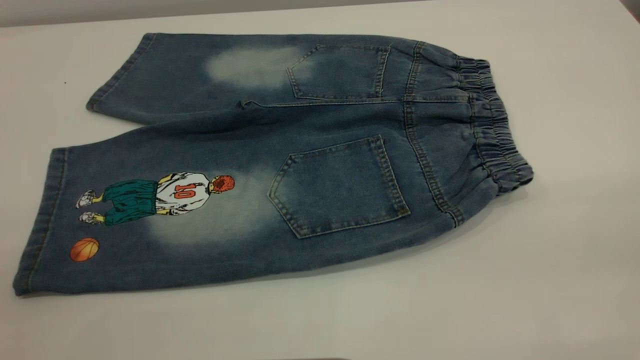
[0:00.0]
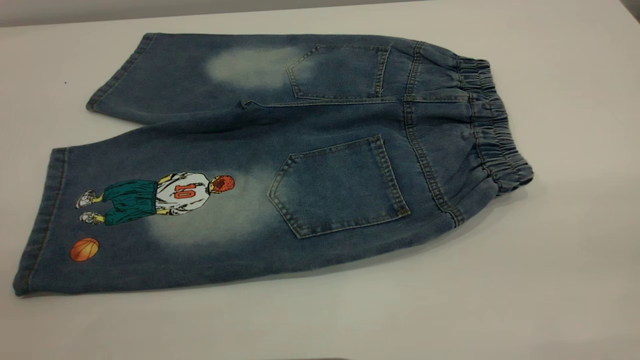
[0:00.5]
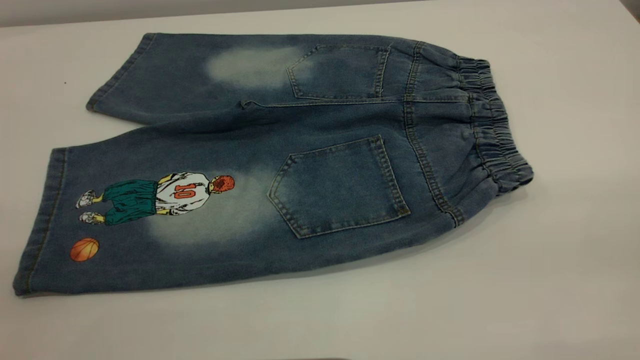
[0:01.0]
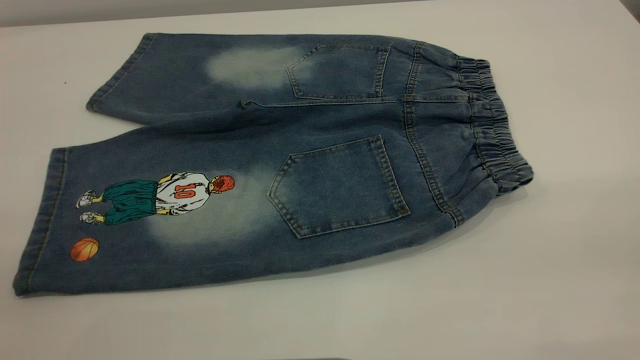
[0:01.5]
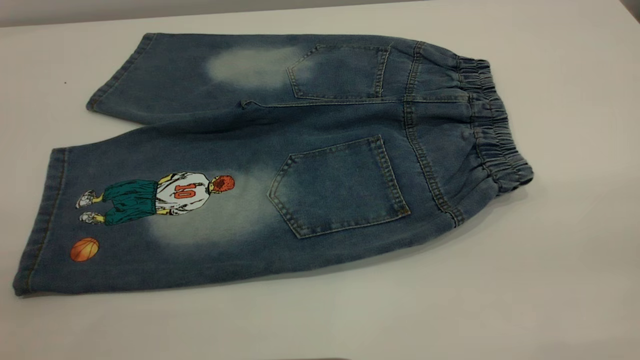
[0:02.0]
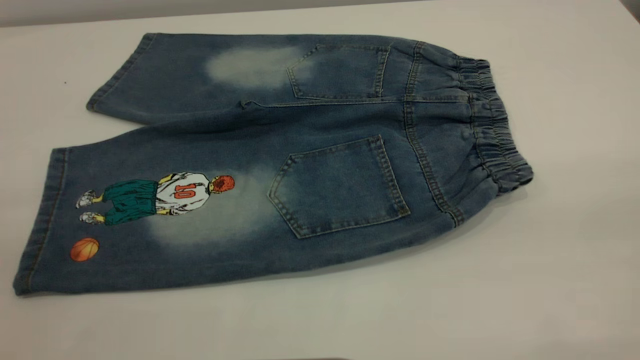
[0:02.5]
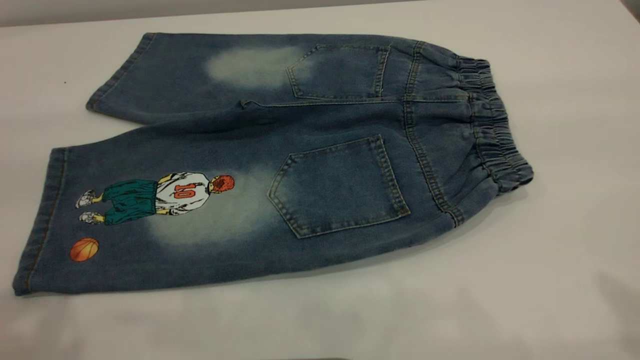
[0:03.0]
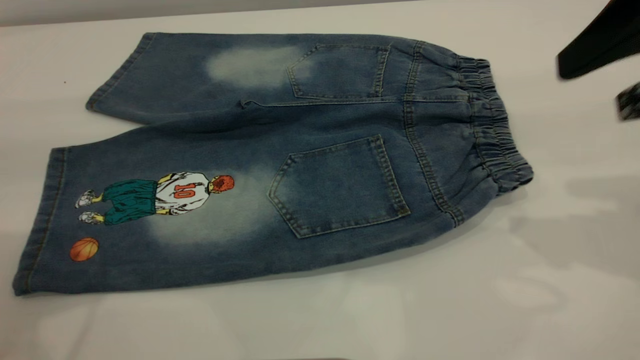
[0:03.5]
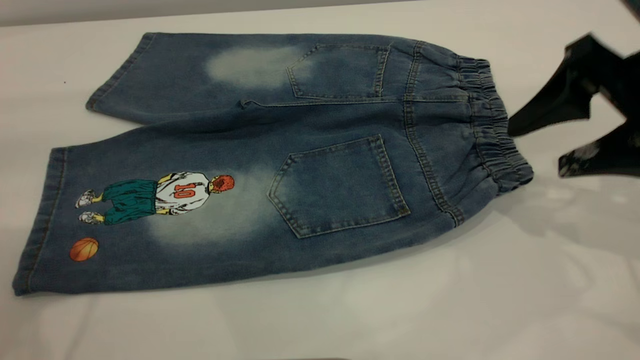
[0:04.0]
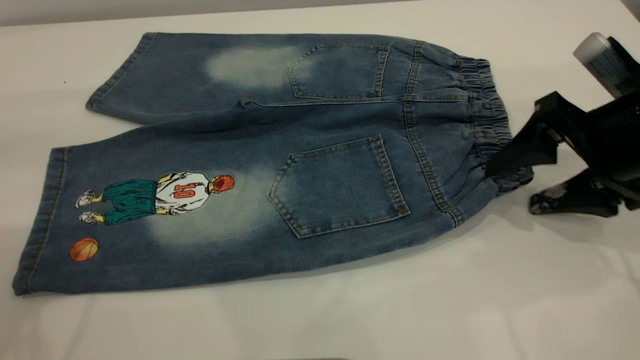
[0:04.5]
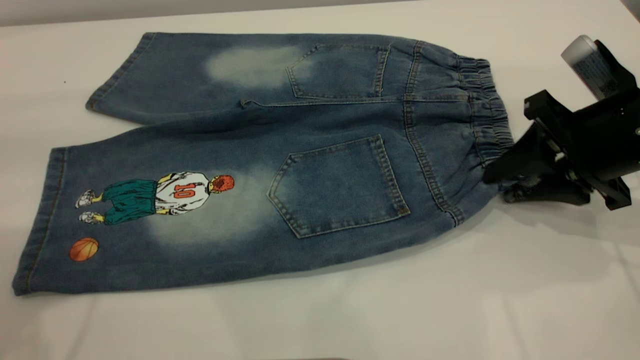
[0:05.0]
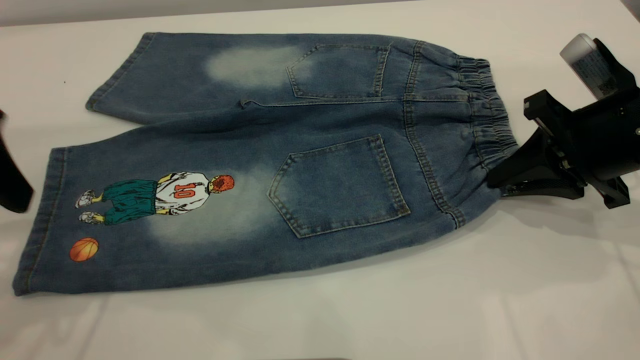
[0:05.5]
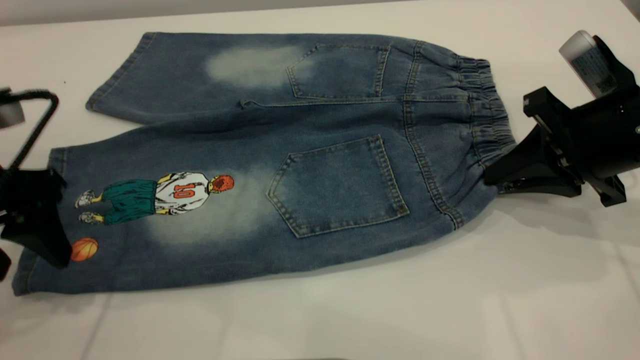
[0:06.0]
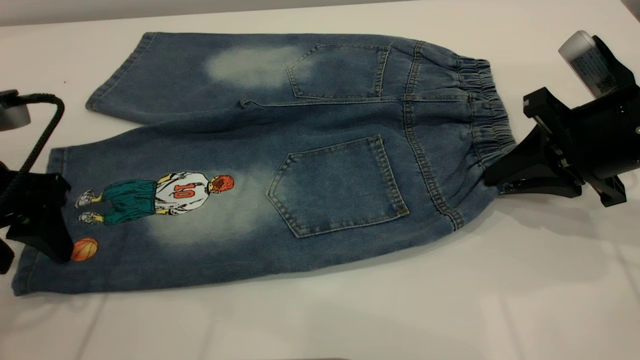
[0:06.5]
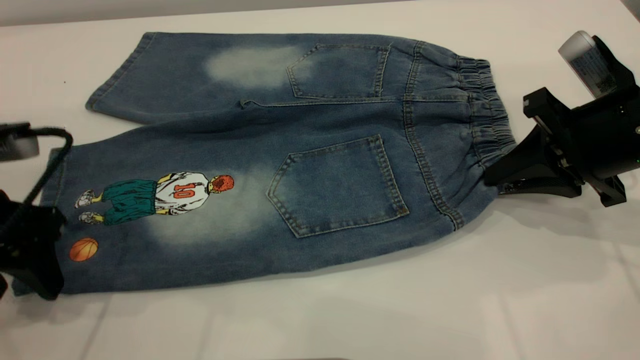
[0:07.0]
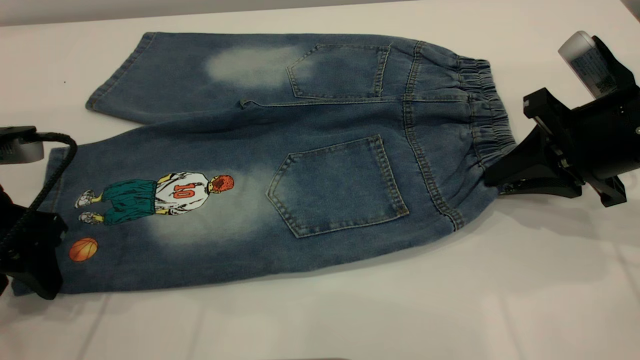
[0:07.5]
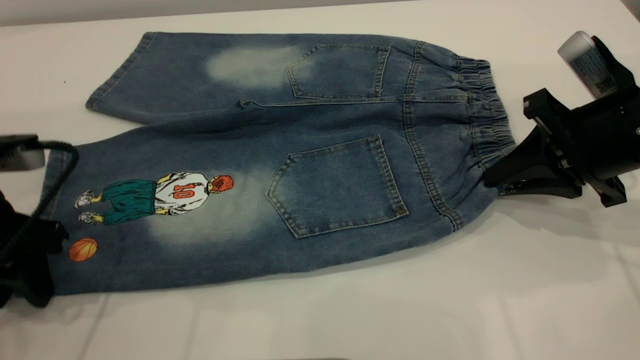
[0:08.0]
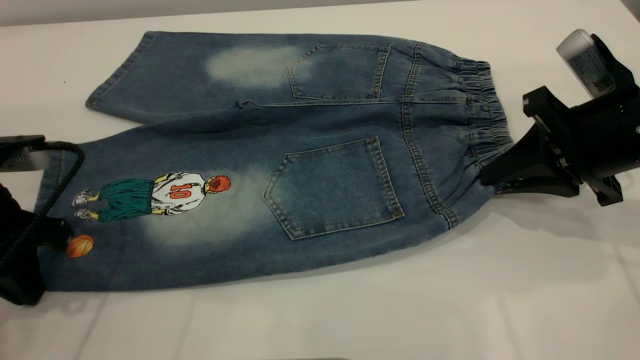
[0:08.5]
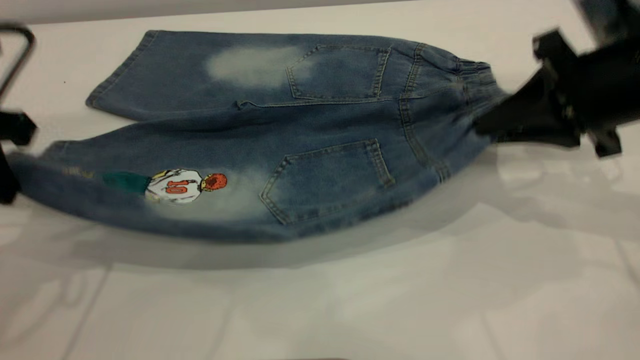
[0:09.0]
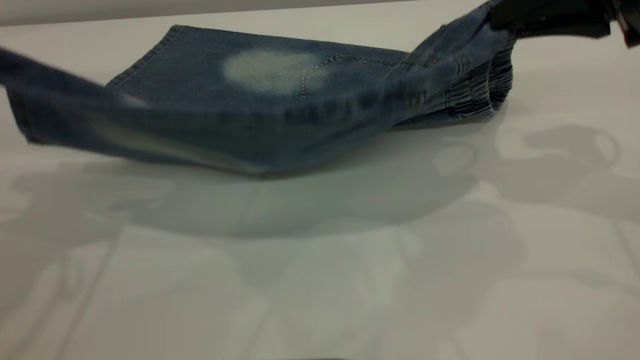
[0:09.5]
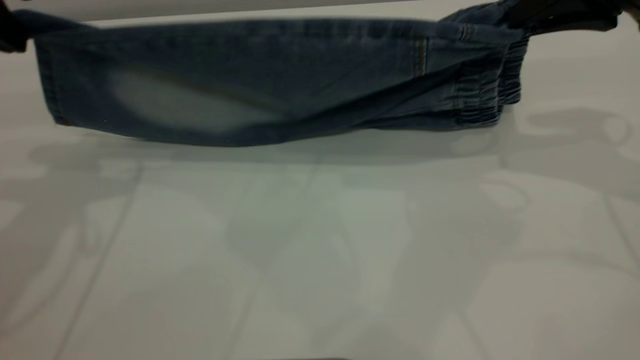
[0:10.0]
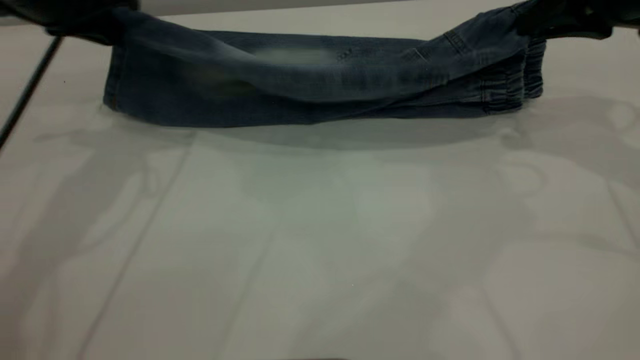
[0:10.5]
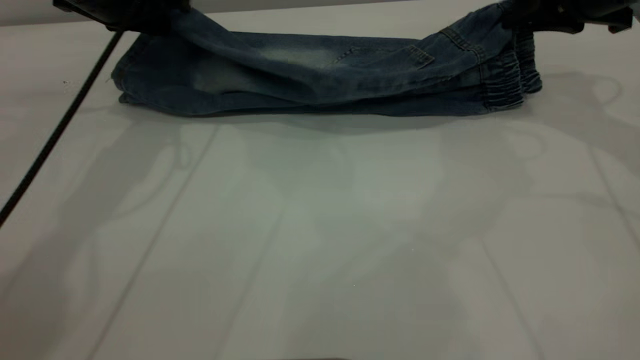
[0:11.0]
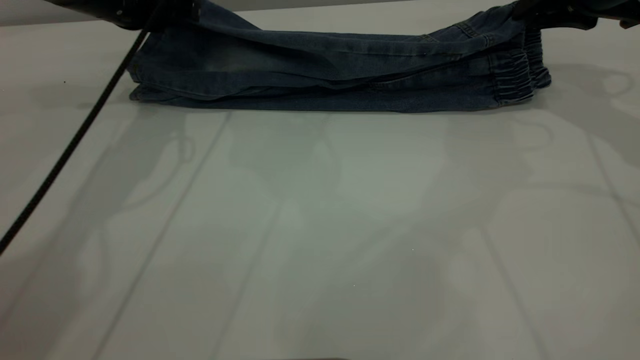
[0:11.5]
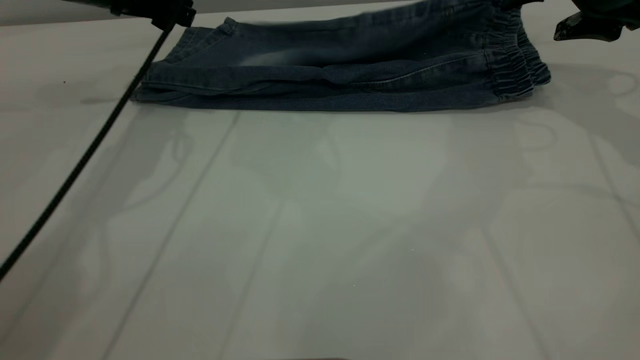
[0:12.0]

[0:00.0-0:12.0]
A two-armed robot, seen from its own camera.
0:00.0 to 0:02.0: The two grippers keep their place.
0:02.0 to 0:04.0: The right gripper travels forward and downward by some 35 cm.
0:04.0 to 0:06.0: The left gripper is displaced downward by approximately 15 cm. The right gripper moves downward, about 5 cm, and closes up.
0:06.0 to 0:08.0: The left gripper closes.
0:08.0 to 0:10.0: The two grippers go approximately 15 cm upward and forward. The left gripper closes up.
0:10.0 to 0:12.0: The right gripper is displaced forward and downward by about 10 cm, and opens. Meanwhile the left gripper goes roughly 15 cm forward, downward and to the right, and opens.

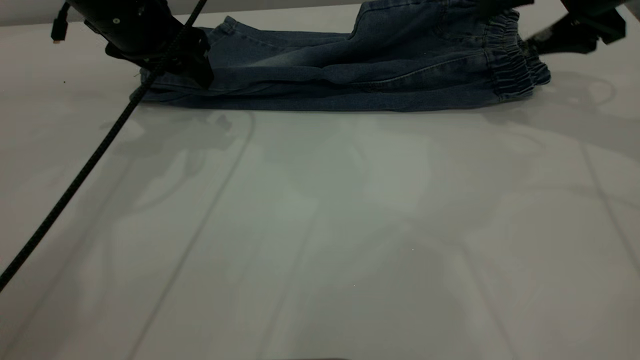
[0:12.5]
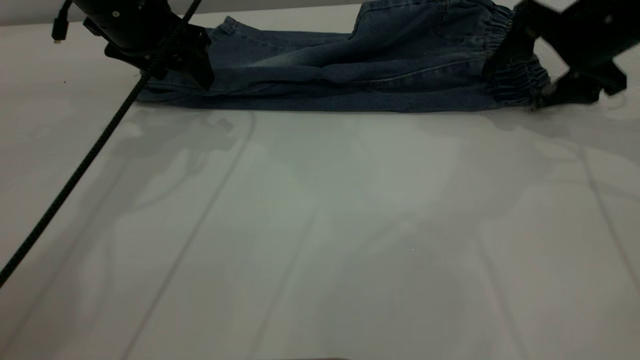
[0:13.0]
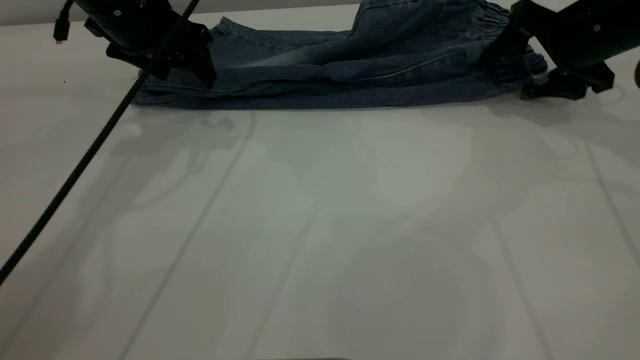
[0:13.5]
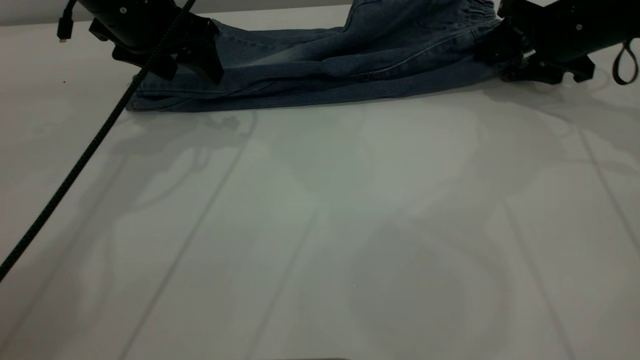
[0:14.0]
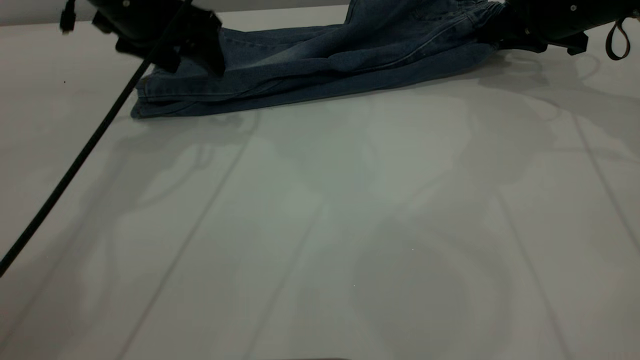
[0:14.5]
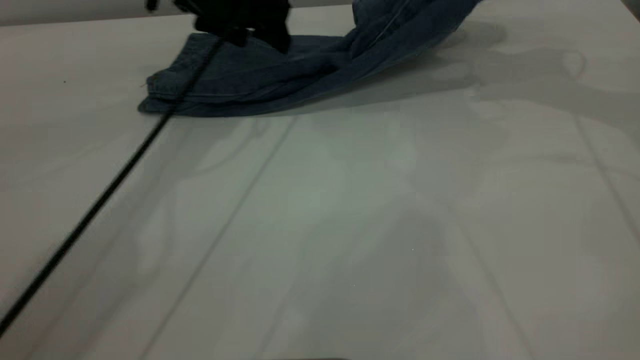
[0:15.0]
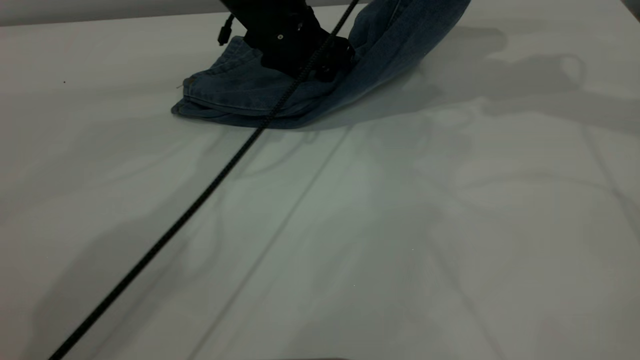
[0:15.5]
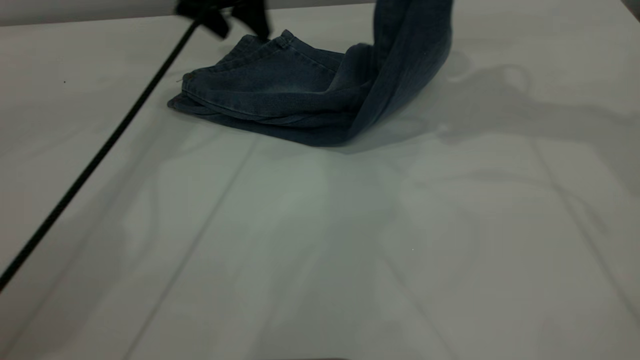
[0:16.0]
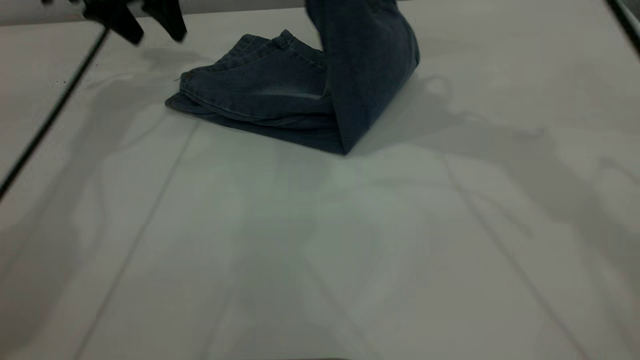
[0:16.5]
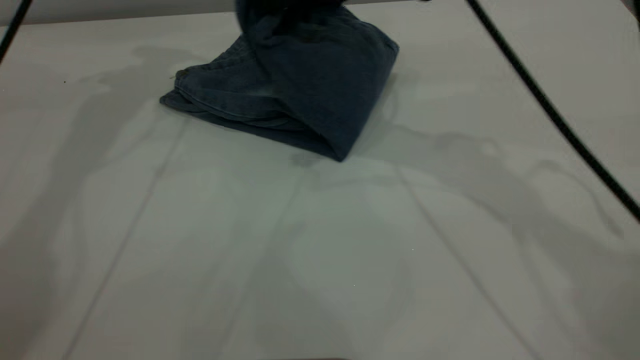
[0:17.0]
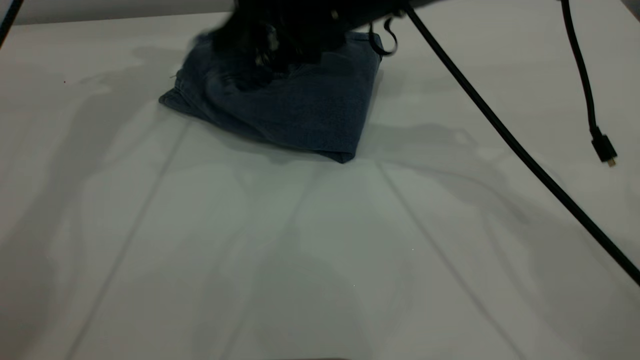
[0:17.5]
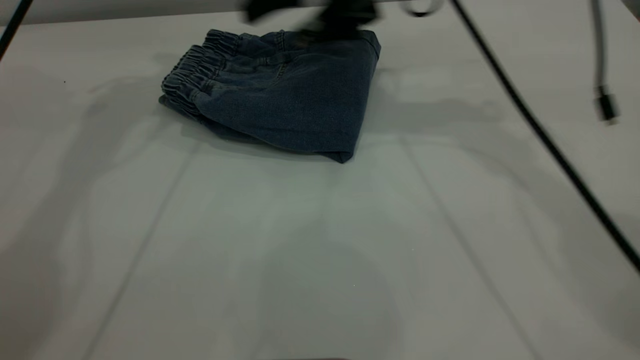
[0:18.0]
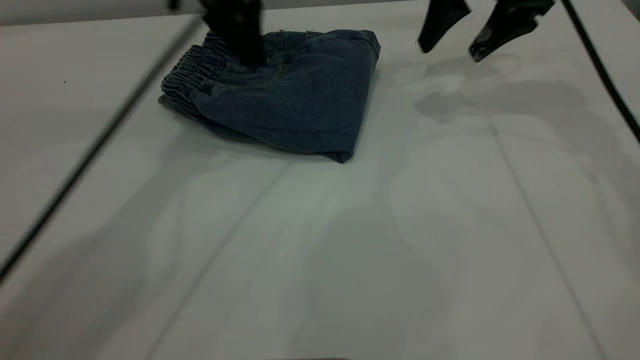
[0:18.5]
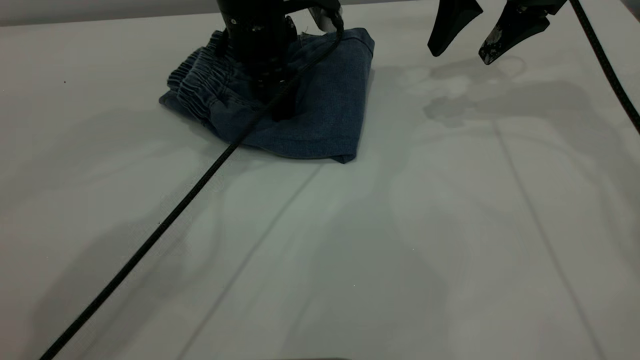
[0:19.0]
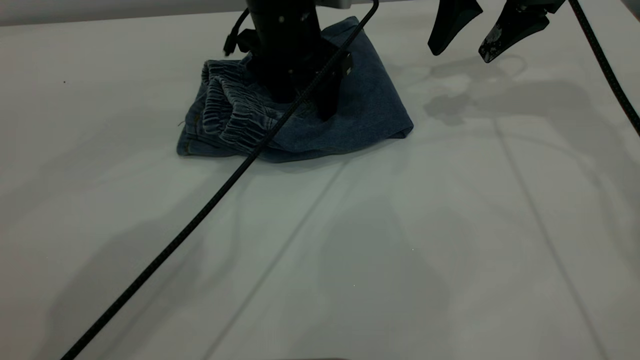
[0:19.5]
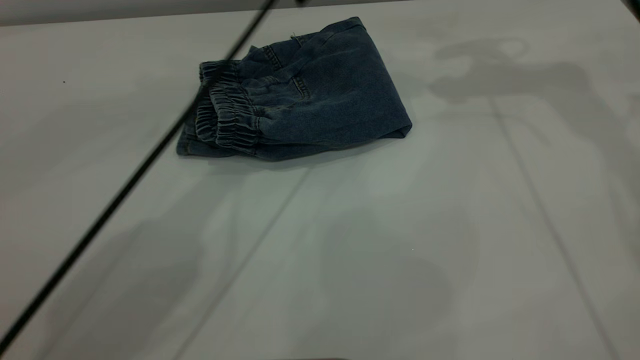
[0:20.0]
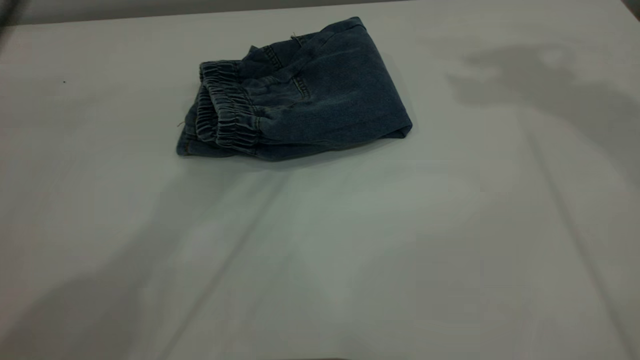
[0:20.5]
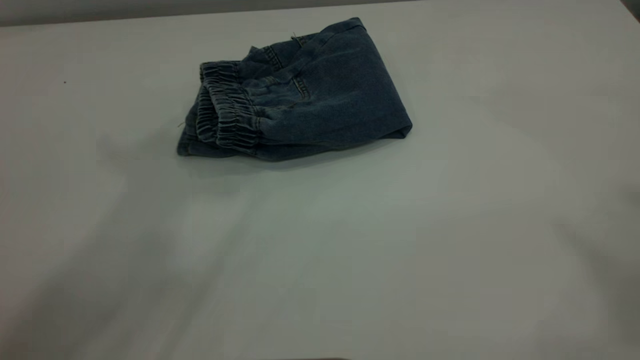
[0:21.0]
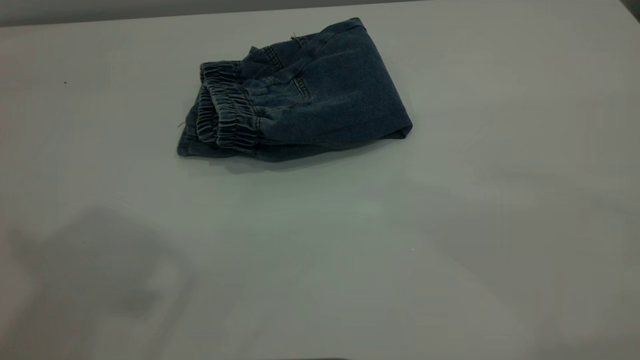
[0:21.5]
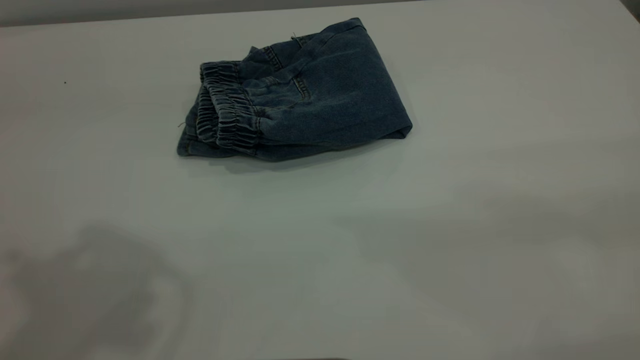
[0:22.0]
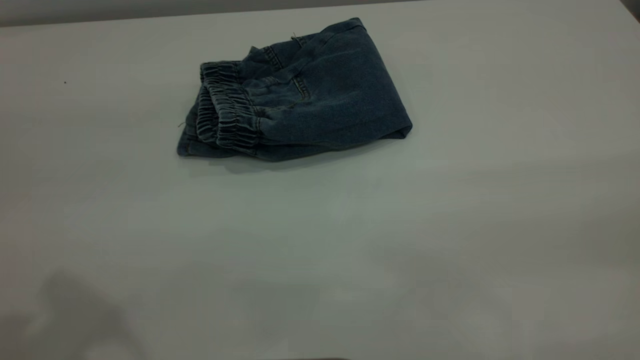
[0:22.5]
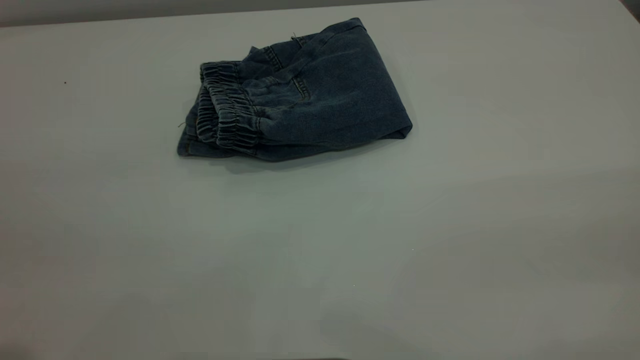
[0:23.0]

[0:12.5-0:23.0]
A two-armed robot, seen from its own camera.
Step, 0:12.5 to 0:18.0: Fold your pants from right to left.
0:12.5 to 0:14.5: The right gripper heads forward and downward, covering about 10 cm, and closes its fingers.
0:14.5 to 0:16.5: The right gripper travels to the left and upward by roughly 25 cm. The left gripper is displaced forward by about 10 cm, and goes to the right and returns, some 10 cm each way.
0:16.5 to 0:19.0: Both grippers move to the right and downward, approximately 15 cm. The right gripper opens its fingers.
0:19.0 to 0:21.0: Both grippers move upward and backward, about 50 cm.
